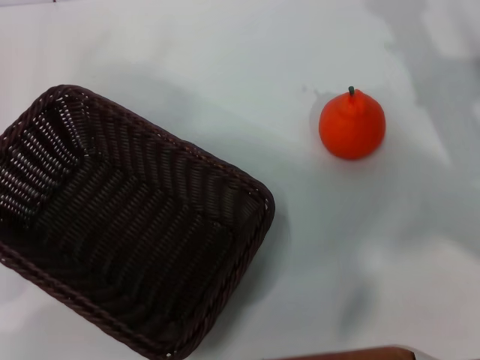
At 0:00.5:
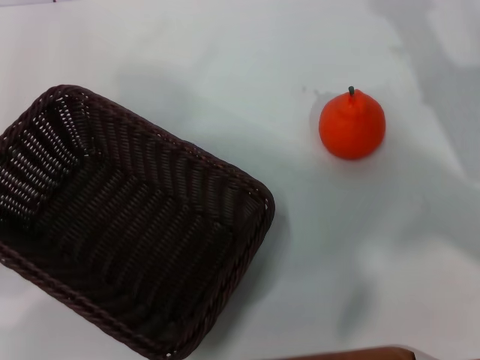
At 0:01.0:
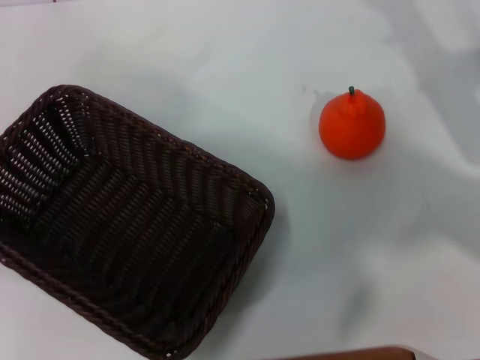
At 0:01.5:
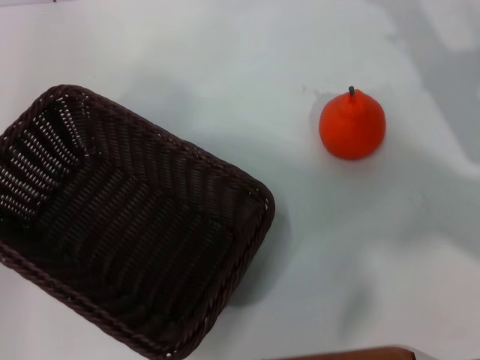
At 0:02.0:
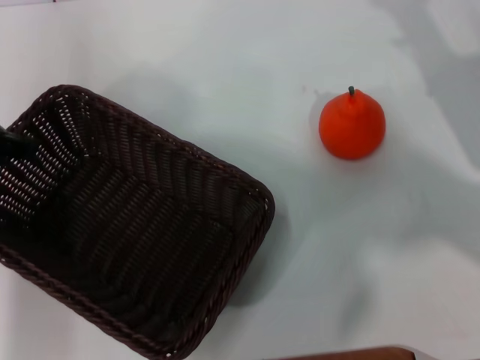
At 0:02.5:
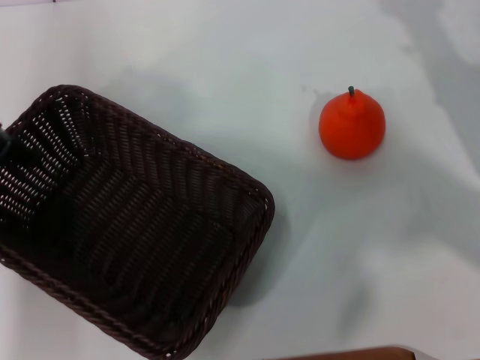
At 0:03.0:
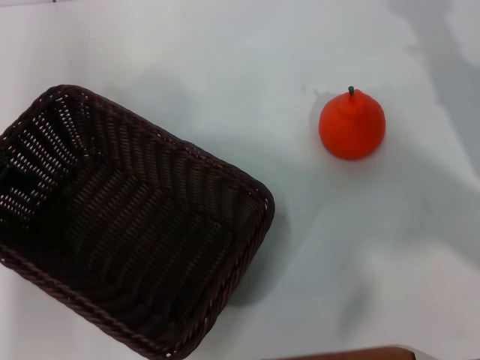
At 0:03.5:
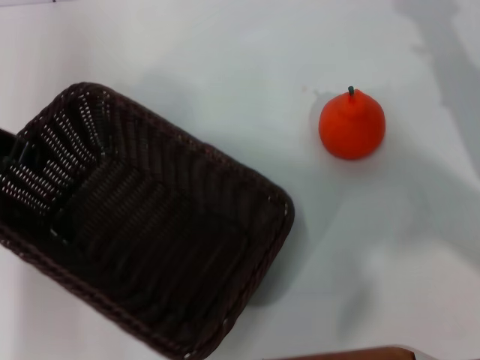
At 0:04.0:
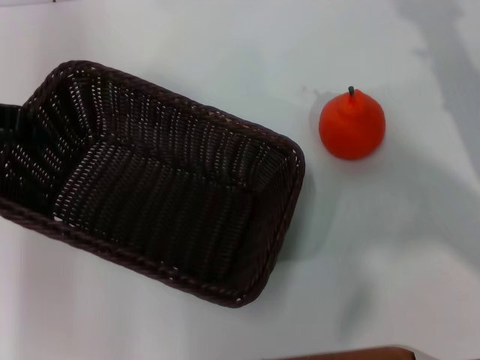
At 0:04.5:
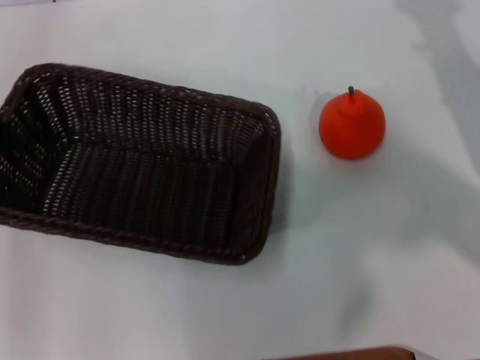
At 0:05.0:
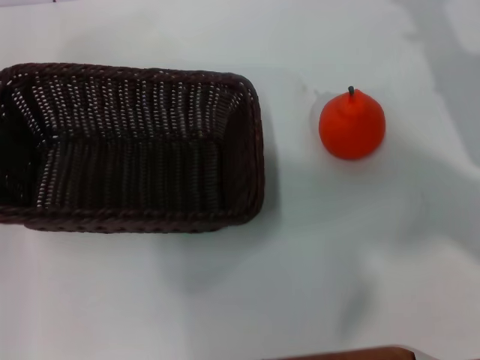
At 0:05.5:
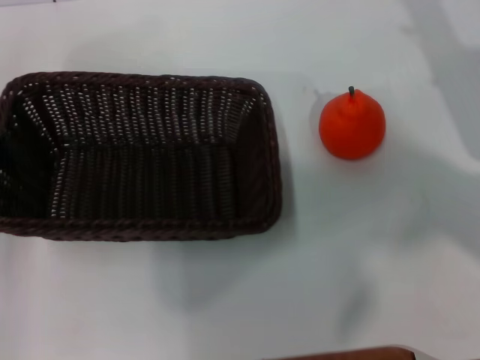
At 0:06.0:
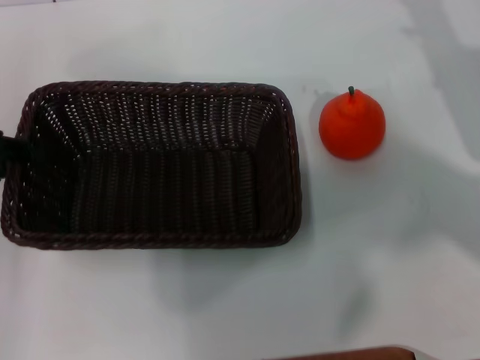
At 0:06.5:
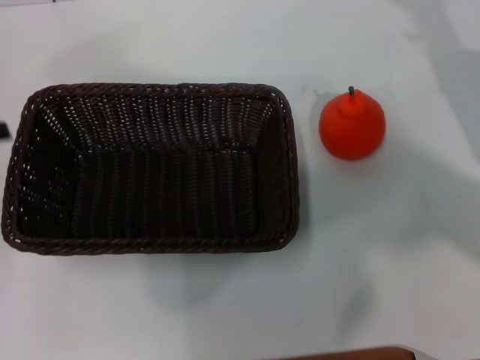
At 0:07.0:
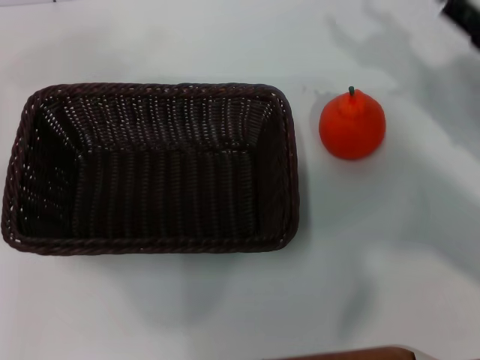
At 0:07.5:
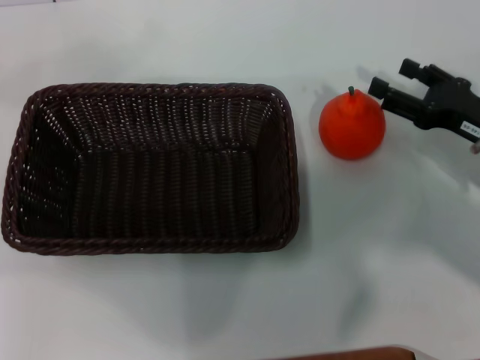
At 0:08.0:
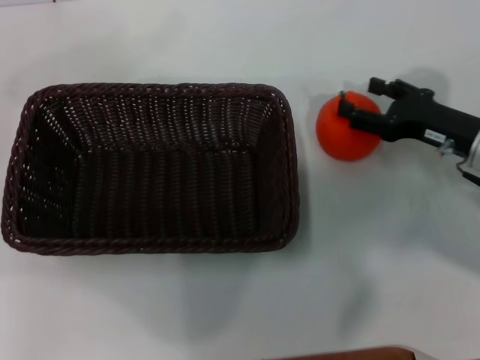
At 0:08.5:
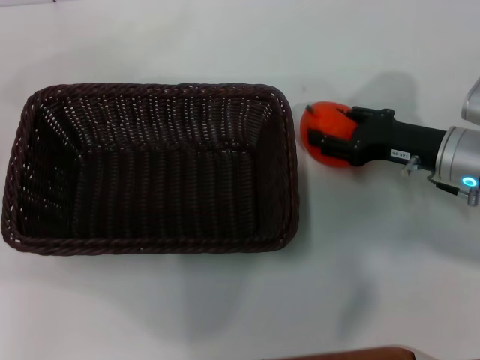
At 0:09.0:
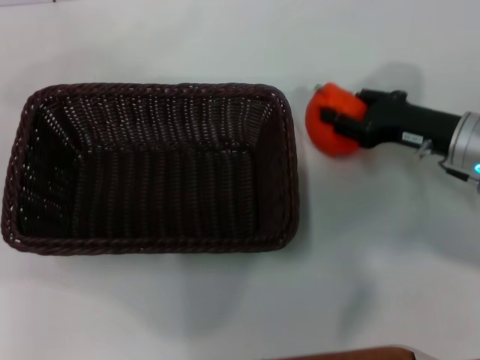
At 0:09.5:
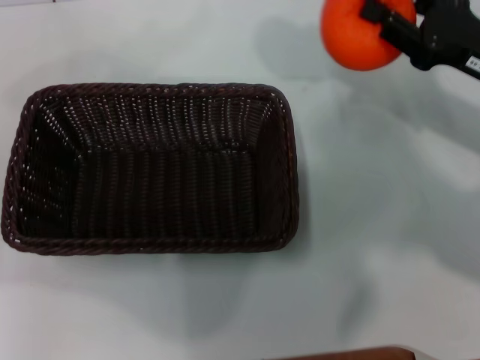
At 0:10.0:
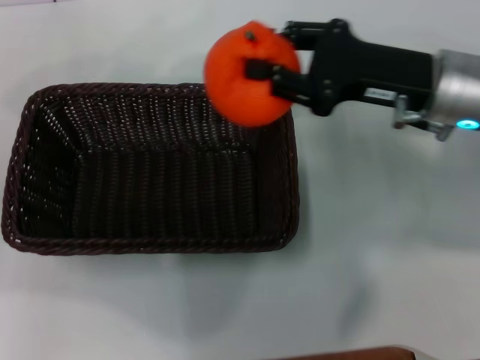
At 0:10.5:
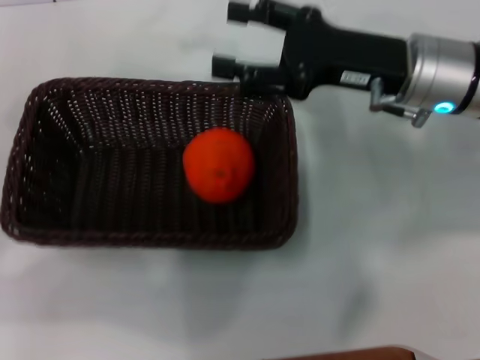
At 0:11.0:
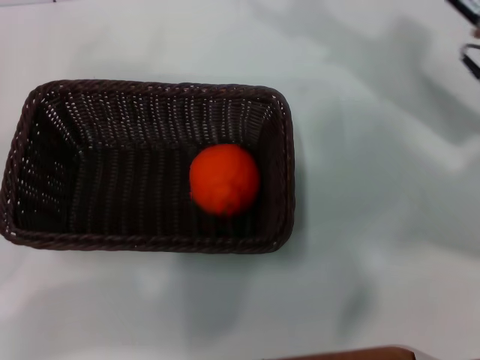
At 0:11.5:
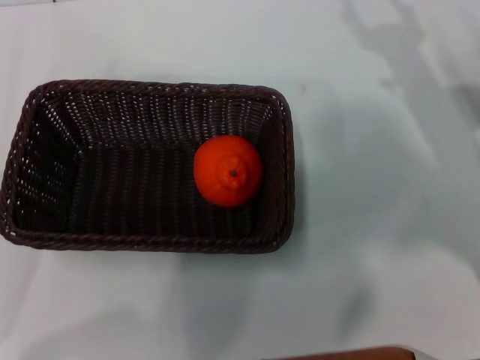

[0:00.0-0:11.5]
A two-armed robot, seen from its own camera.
Task of the whole recording: the left gripper pick up the black basket and place it horizontally in the middle of the table, the right gripper pick up the orange and place it into the black basket.
Step, 0:00.0 to 0:03.5: Pick up the dark basket with the left gripper.
Step, 0:04.0 to 0:06.5: Place the dark basket in the center of view with the left gripper.
Step, 0:07.0 to 0:09.0: Pick up the orange with the right gripper.
Step, 0:09.5 to 0:10.5: Place the orange into the dark basket with the right gripper.
0:00.0 to 0:02.0: The left gripper moves upward, forward and to the right, approximately 20 cm.
0:02.0 to 0:04.0: The left gripper closes up.
0:04.0 to 0:06.0: The left gripper goes about 5 cm backward.
0:06.0 to 0:07.5: The left gripper shifts about 10 cm to the left and backward, and opens its fingers. The right gripper travels downward by approximately 5 cm.
0:07.5 to 0:09.5: The right gripper travels upward by some 5 cm, and closes its fingers.
0:09.5 to 0:11.5: The left gripper moves downward, some 10 cm. The right gripper heads downward, covering roughly 5 cm, goes to the left and returns, some 10 cm each way, and opens its fingers.
